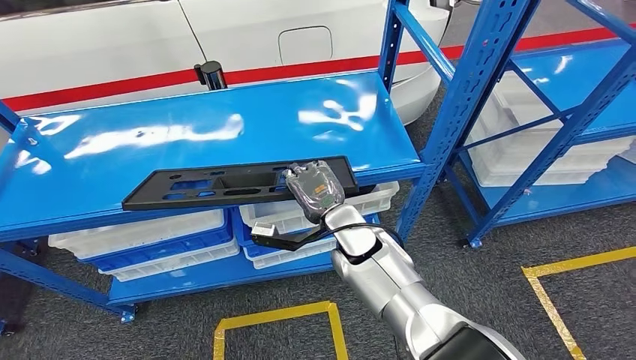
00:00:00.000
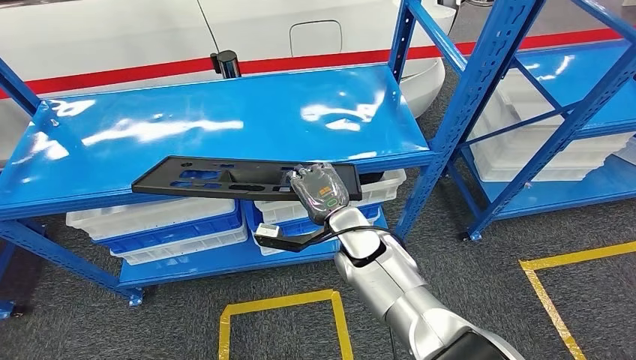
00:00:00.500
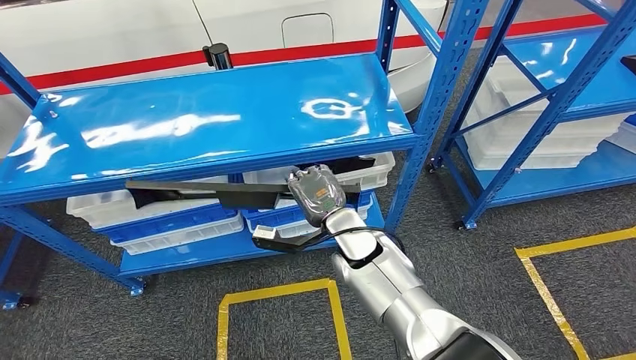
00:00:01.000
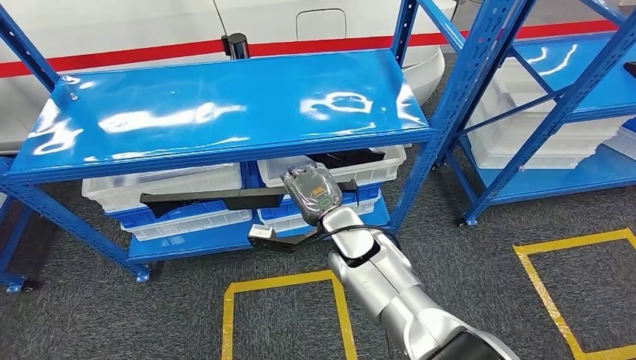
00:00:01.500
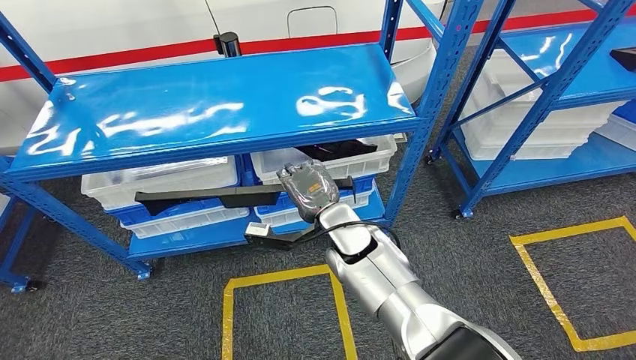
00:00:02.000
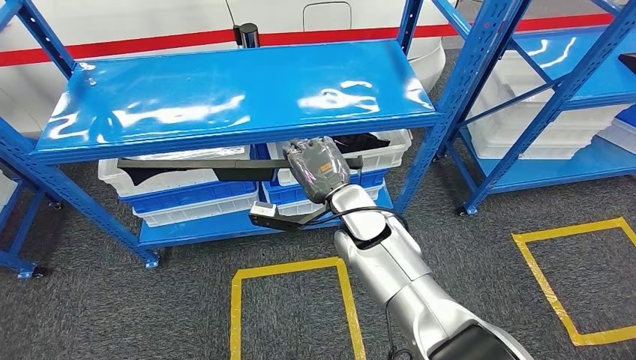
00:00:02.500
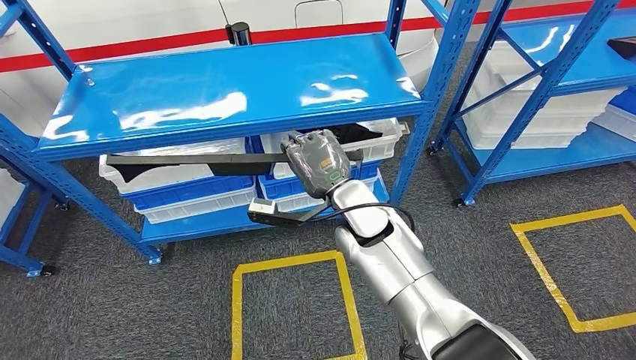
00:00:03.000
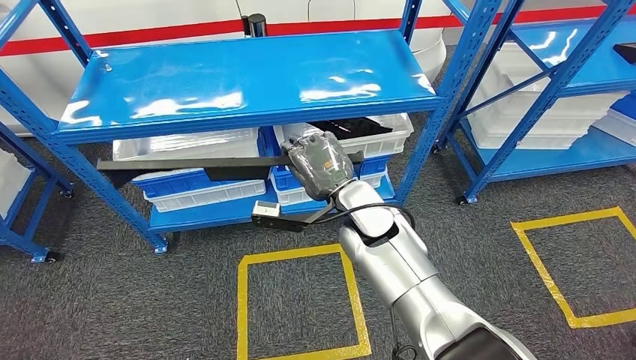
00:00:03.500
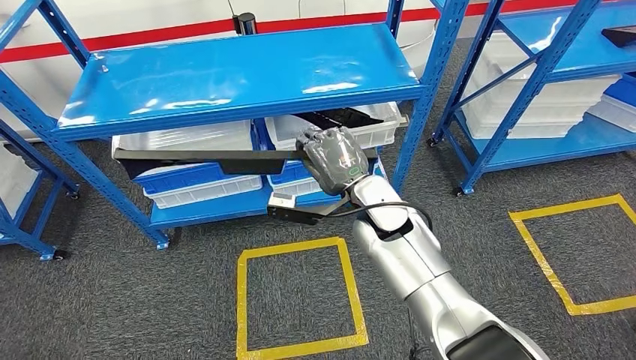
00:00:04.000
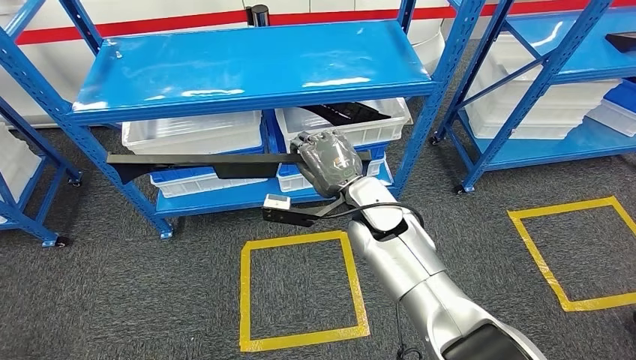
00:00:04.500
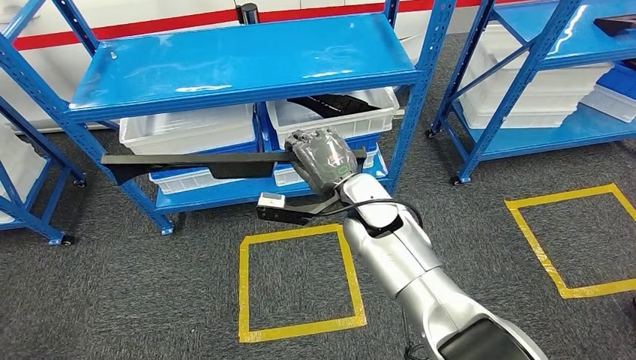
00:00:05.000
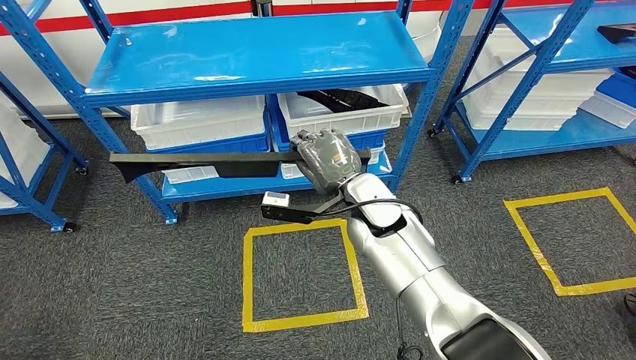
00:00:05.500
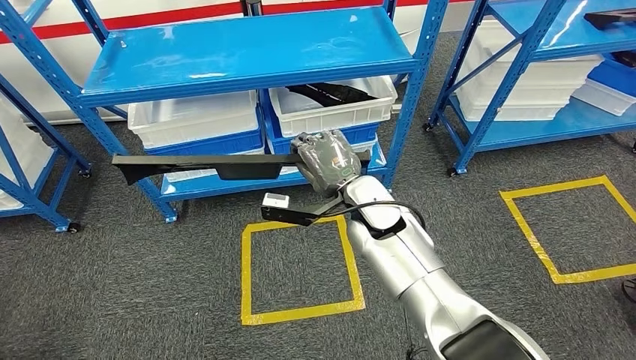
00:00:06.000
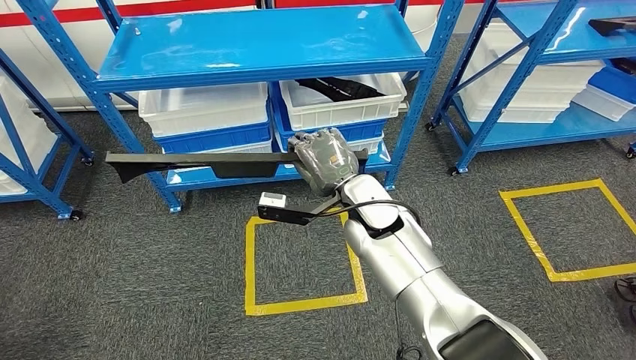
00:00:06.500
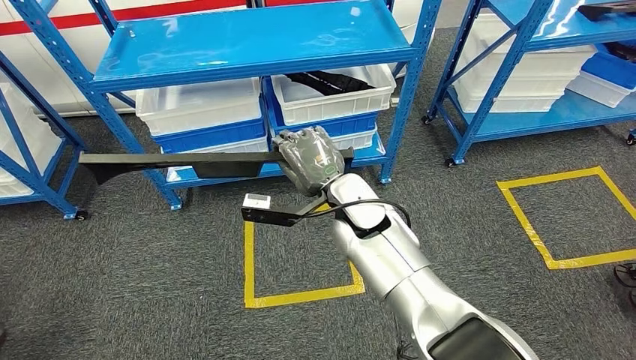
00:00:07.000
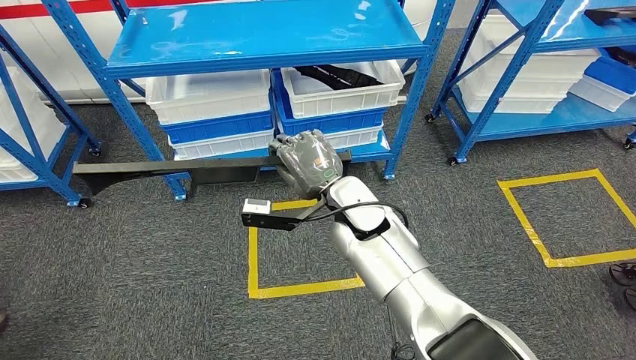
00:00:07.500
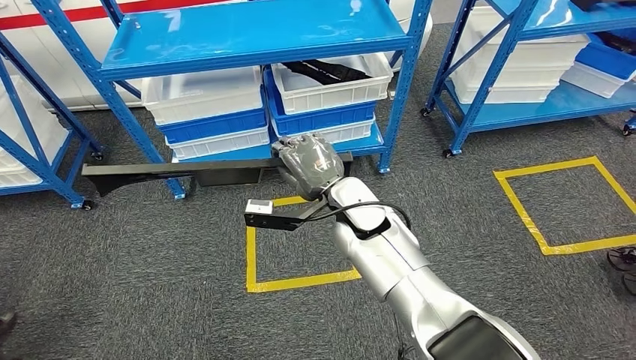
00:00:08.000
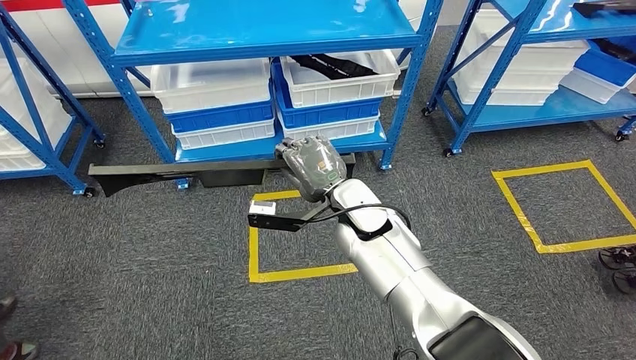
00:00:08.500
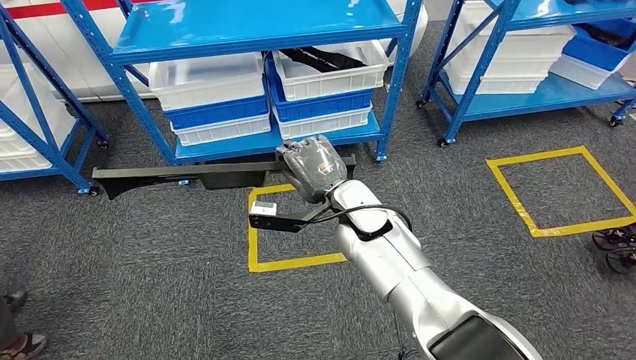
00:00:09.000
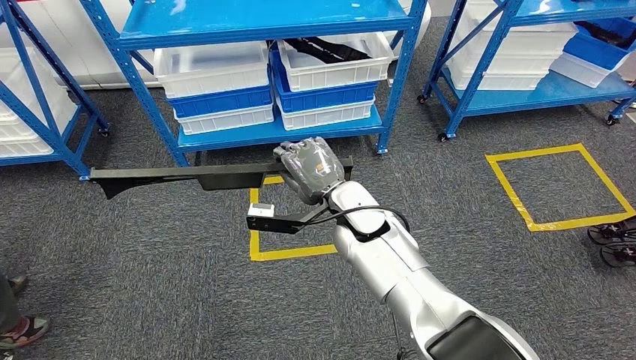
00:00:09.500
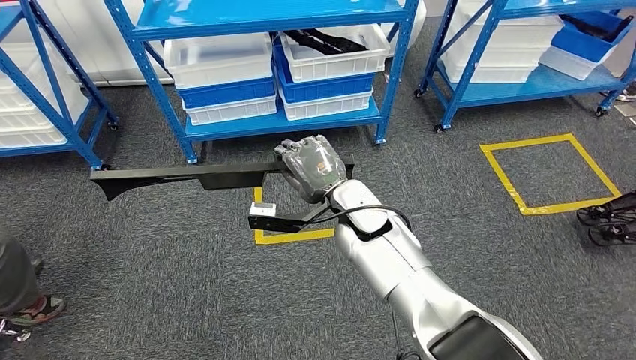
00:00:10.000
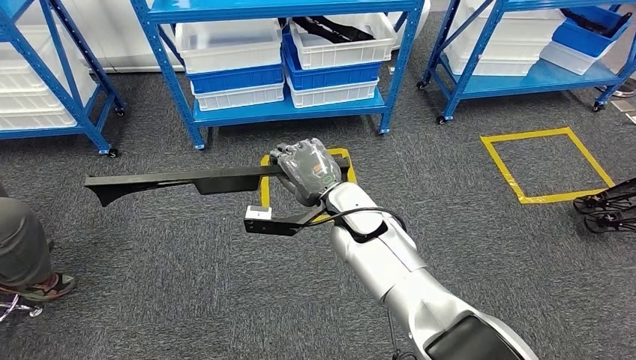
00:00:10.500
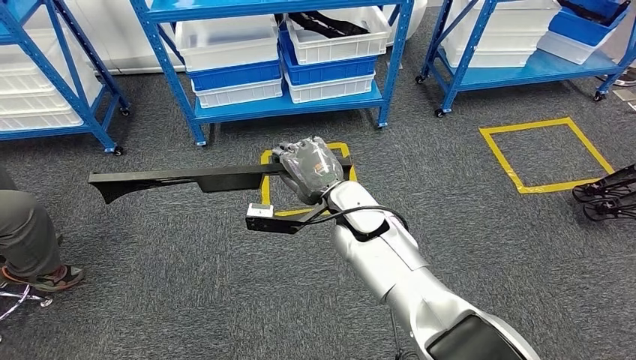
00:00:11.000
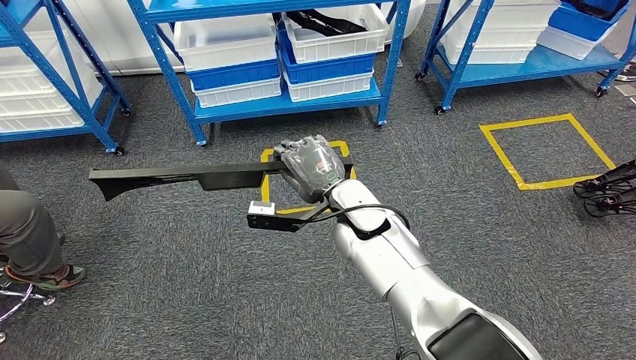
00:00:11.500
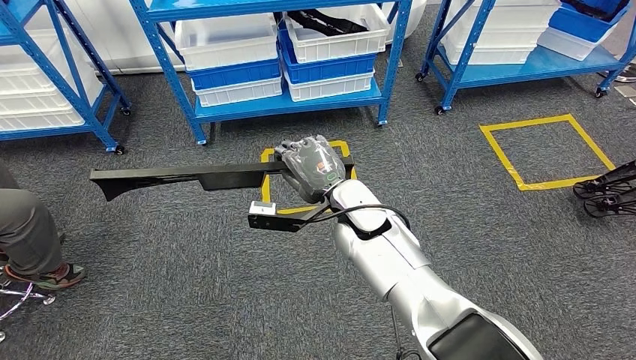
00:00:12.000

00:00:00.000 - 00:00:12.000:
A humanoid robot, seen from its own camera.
Step, 00:00:00.000 - 00:00:02.000: Pick up the large material from the shelf.

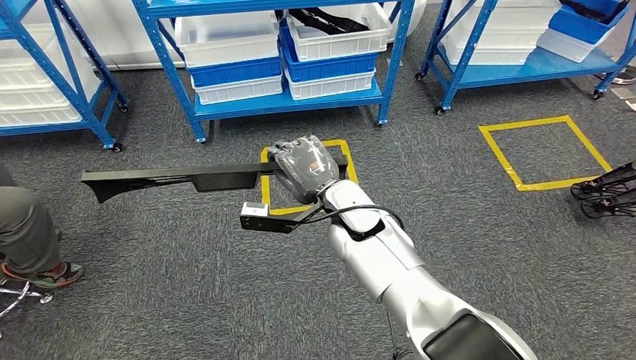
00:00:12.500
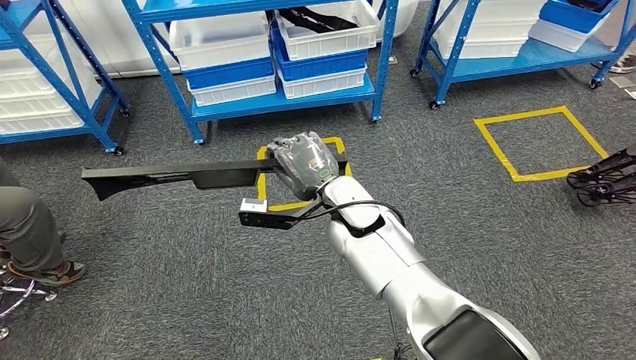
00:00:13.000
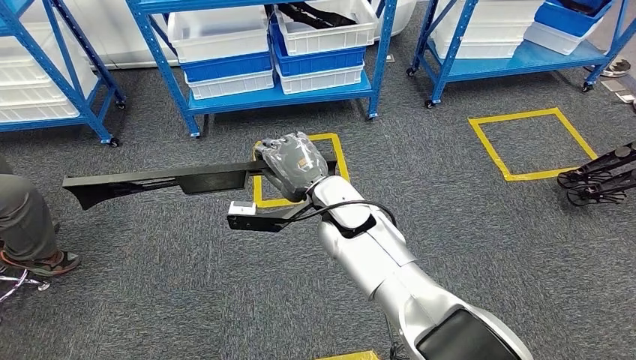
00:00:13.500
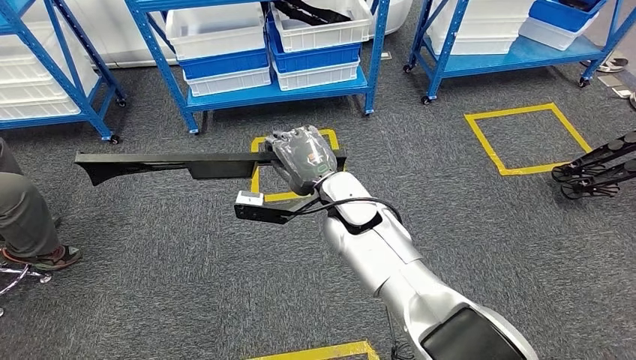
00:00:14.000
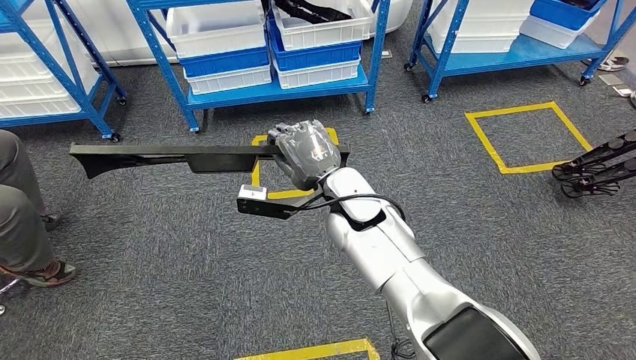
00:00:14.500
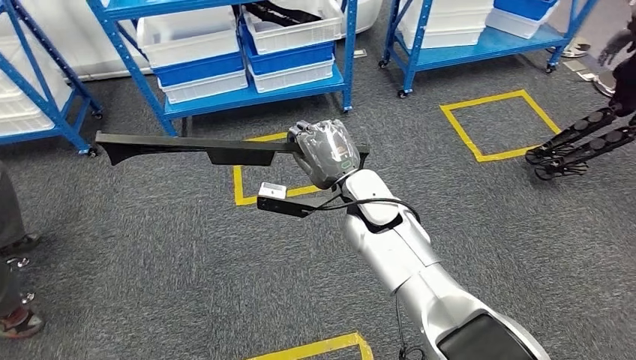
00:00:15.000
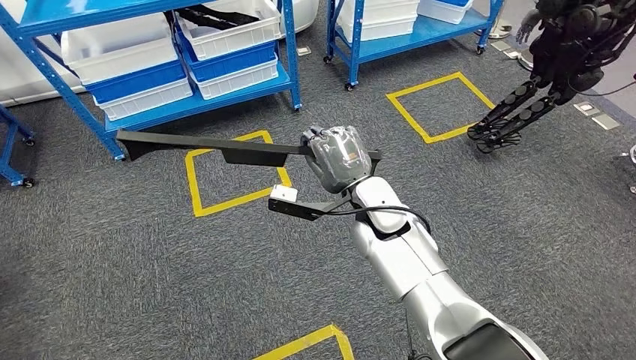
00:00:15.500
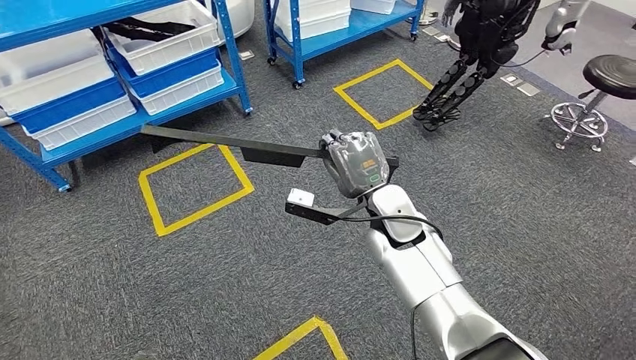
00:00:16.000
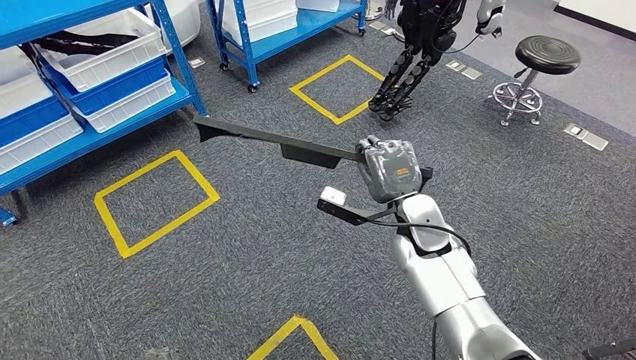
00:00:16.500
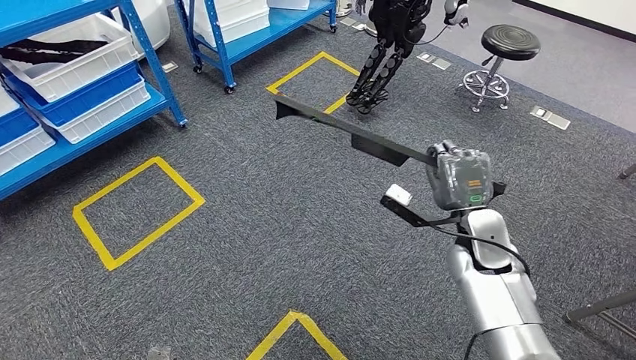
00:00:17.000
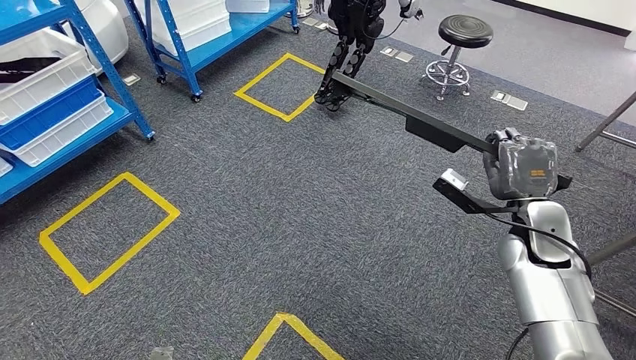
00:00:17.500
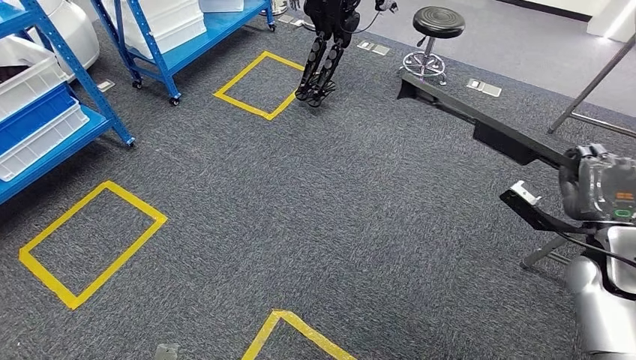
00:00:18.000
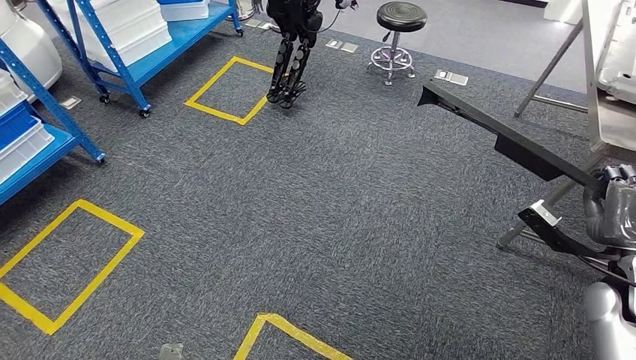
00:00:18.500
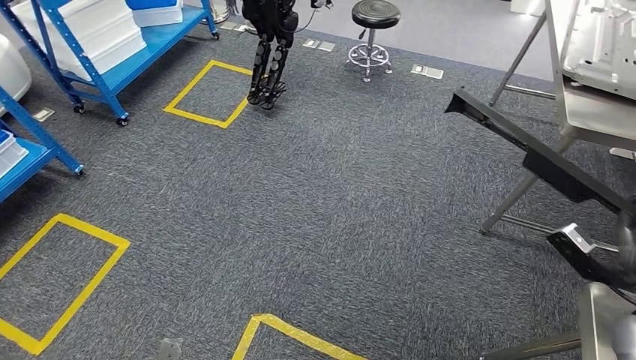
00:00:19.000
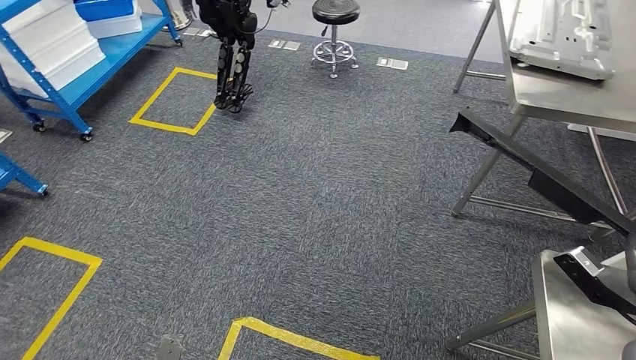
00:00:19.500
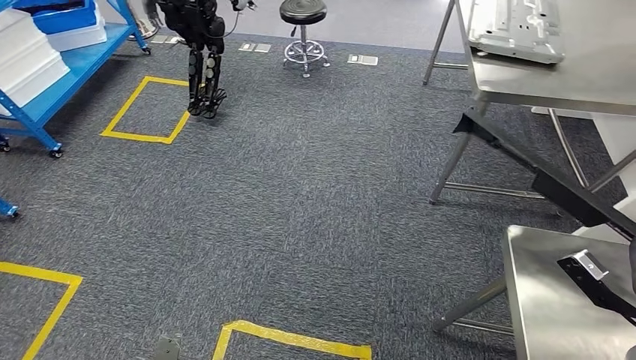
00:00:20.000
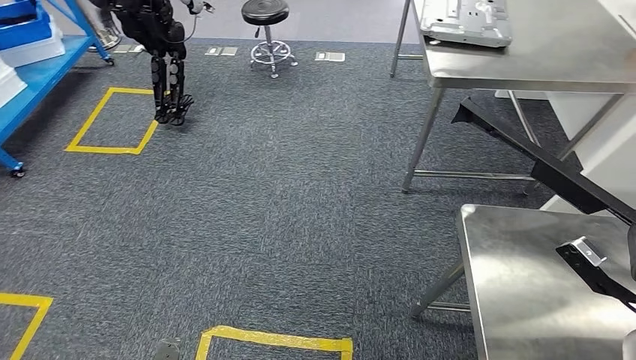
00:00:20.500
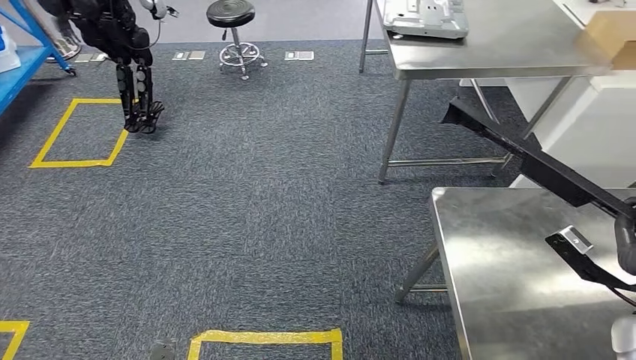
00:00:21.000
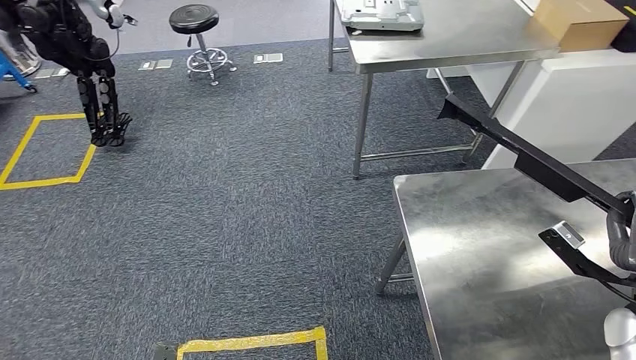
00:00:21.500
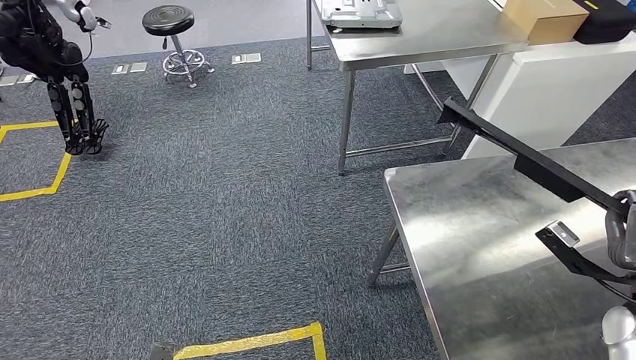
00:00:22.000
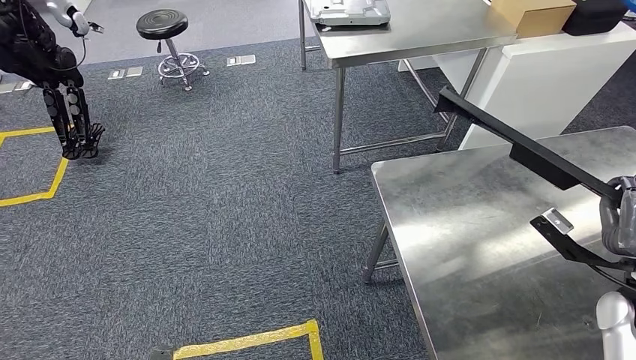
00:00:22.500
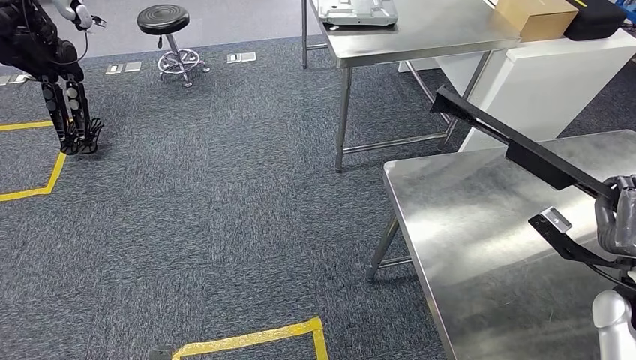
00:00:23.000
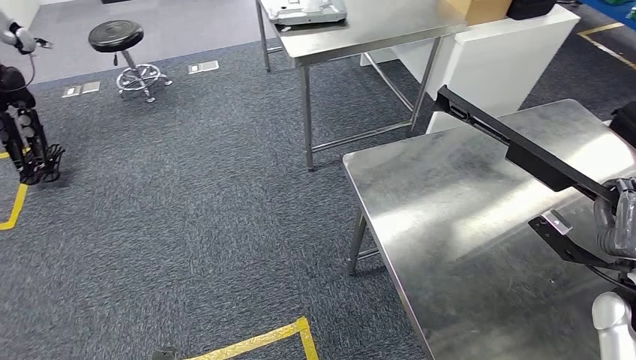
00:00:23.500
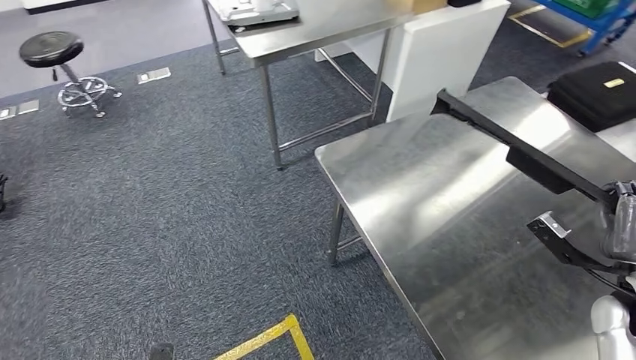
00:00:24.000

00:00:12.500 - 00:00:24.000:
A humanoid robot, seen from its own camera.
Step, 00:00:12.500 - 00:00:19.500: Move the large material to the workbench.
